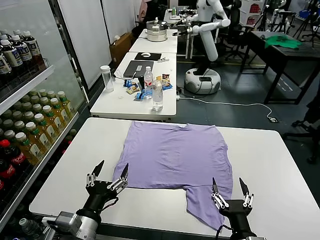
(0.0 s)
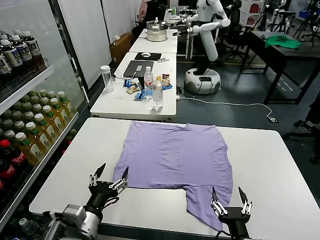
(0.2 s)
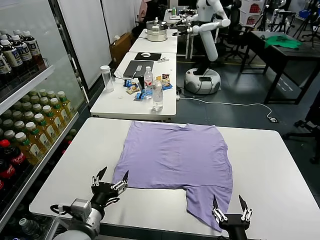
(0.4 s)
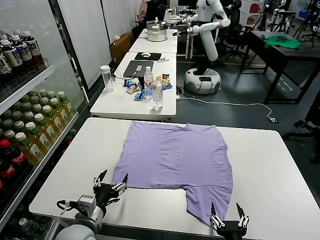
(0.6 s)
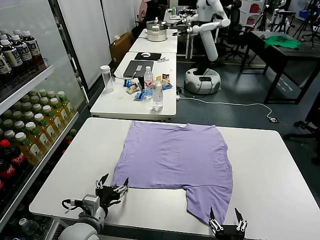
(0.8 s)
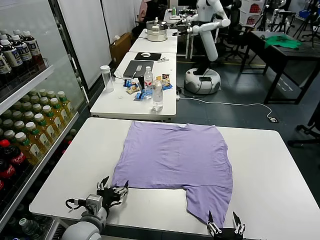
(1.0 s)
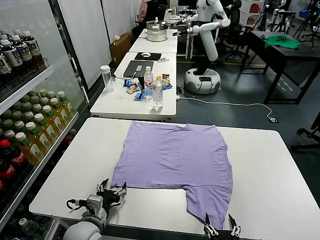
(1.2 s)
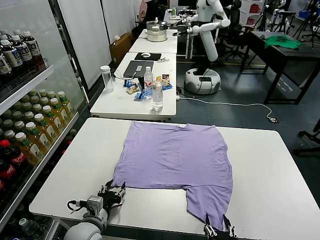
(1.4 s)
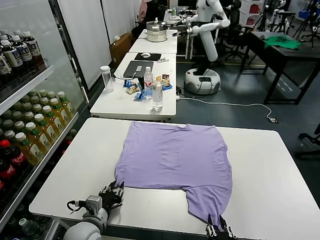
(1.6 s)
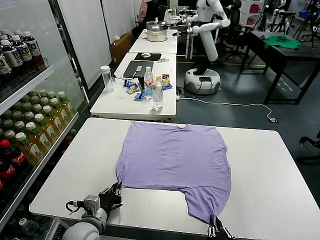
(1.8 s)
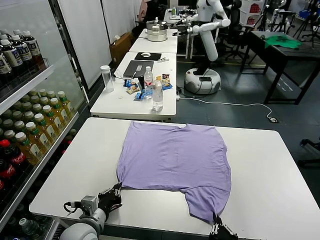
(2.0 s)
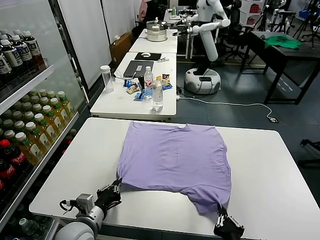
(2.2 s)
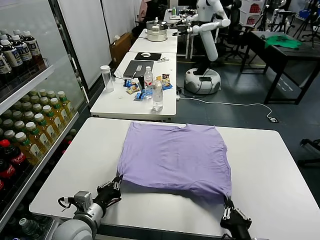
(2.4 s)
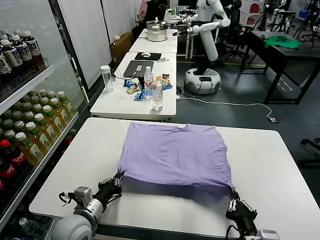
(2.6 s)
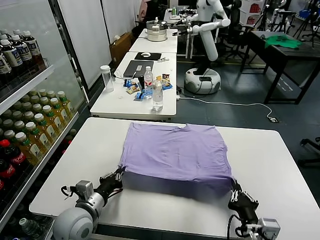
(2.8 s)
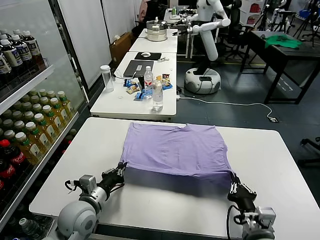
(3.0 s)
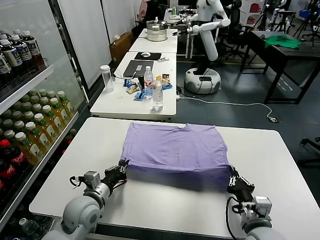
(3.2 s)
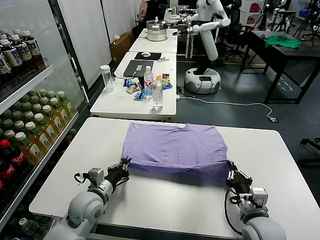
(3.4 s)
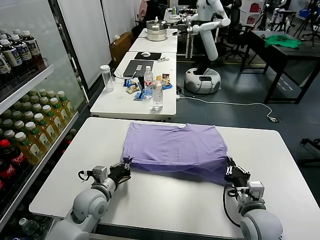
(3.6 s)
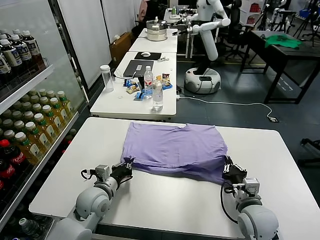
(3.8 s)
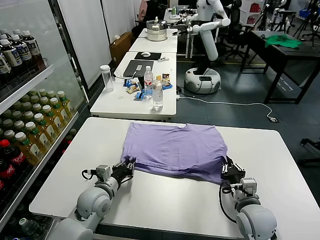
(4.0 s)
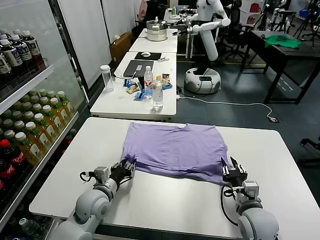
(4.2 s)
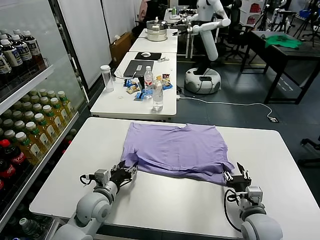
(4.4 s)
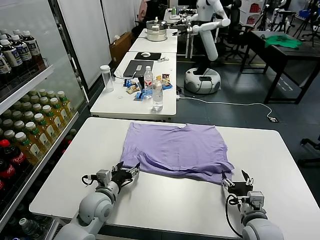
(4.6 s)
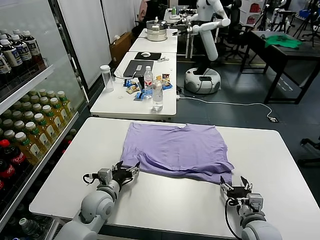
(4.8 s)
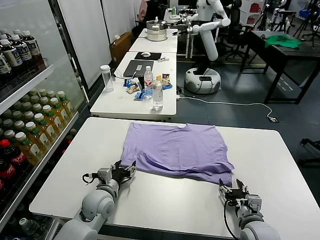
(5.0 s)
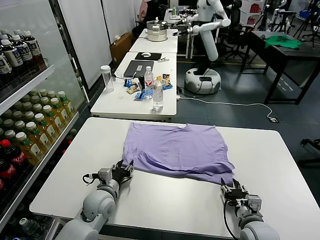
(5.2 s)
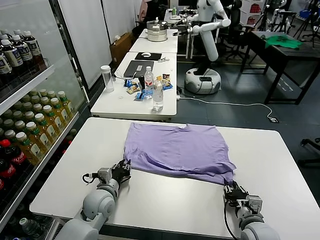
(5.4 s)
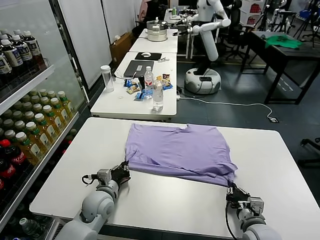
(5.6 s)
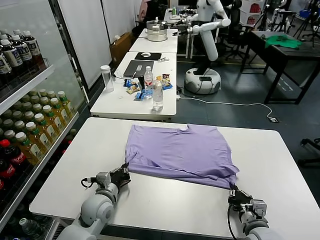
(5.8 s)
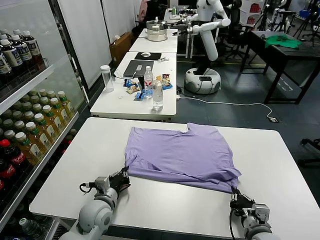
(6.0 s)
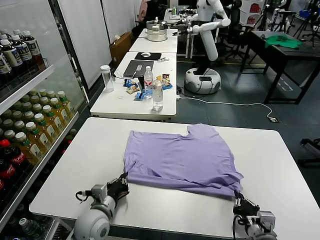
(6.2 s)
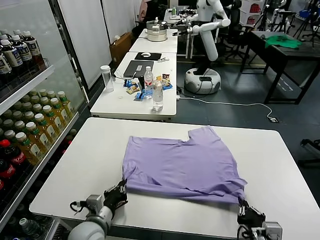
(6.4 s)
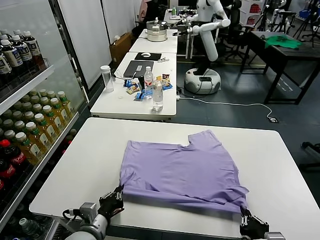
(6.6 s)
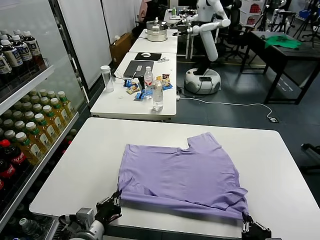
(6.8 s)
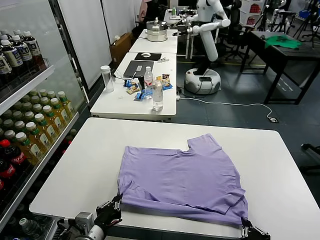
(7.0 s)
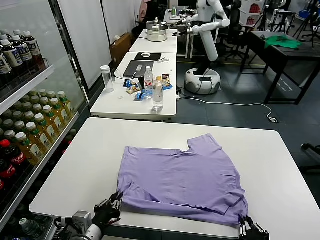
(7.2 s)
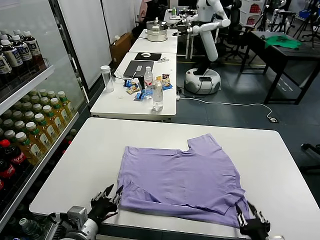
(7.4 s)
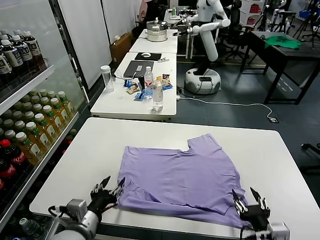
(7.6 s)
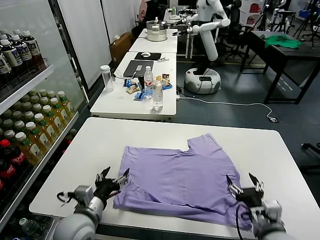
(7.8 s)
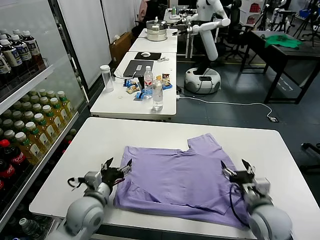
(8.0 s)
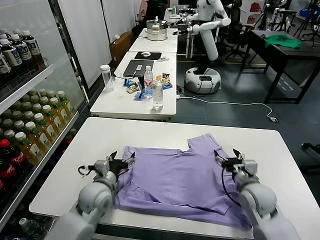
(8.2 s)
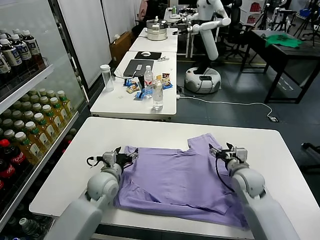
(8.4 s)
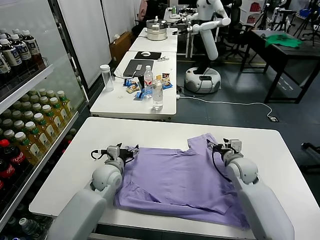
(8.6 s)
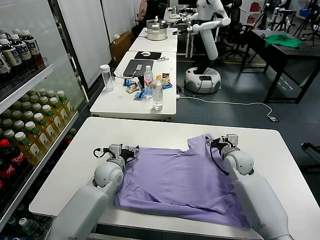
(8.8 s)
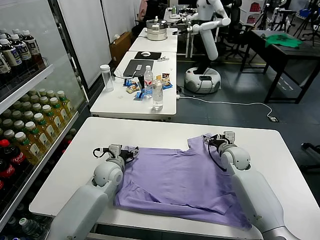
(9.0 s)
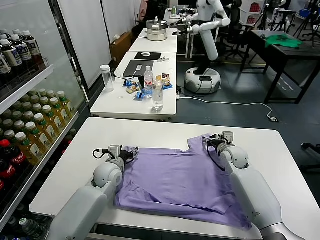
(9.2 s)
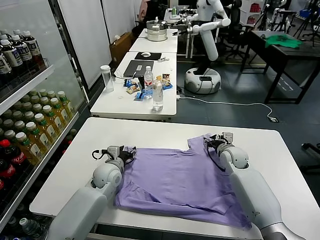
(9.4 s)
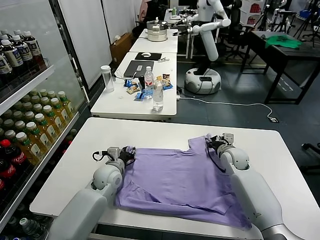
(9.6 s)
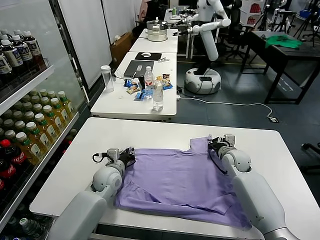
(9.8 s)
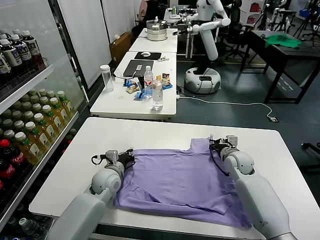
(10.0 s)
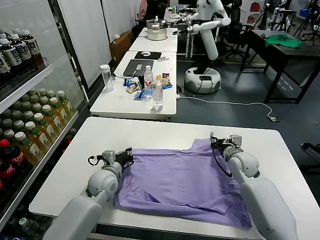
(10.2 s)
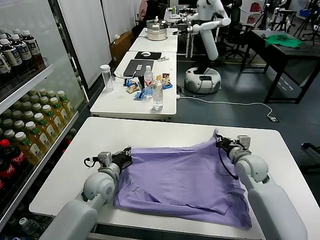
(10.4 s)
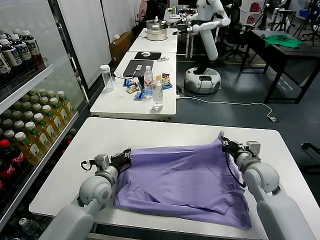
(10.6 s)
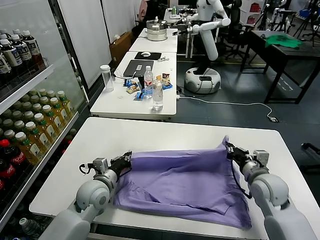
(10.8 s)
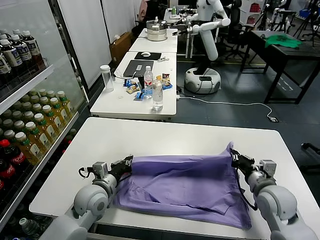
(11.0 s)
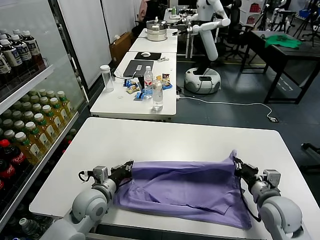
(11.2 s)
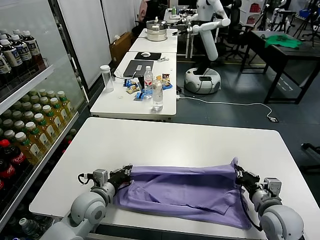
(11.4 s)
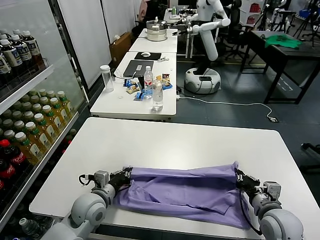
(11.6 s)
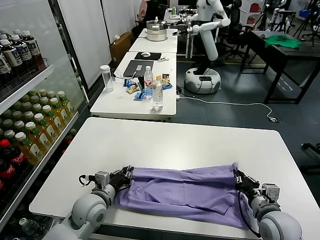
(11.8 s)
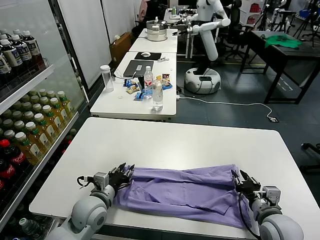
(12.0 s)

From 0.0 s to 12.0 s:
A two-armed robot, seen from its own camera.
Task of the whole recording: fold and organize the clothes.
Step, from 0.0 s to 1.8 s: use both grippers simultaneously to clamp the lower edge of the clothing fabric.
Step, from 2.0 s to 4.4 s: use both grippers to drag the lower edge of the fabric forward and fold it over the upper edge.
Step, from 4.6 s to 7.6 s: Drag the clothes downward with both gripper.
Step, from 7.8 s to 9.8 s: use both grippers simultaneously to clamp the upper edge of the clothing fabric.
From 1.6 s to 3.0 s: The right gripper travels forward and to the right by approximately 15 cm. Meanwhile the left gripper ends up some 5 cm from where it was, and closes.
From 3.0 s to 4.4 s: The right gripper ends up roughly 5 cm from where it was, and opens. The left gripper shifts by approximately 5 cm, and opens.
From 4.4 s to 6.0 s: The left gripper closes its fingers, while the right gripper heads backward, covering approximately 5 cm, and closes up.
From 6.0 s to 7.6 s: The left gripper goes approximately 15 cm backward and upward, and opens. The right gripper travels upward by about 5 cm, moves about 10 cm backward and comes back, and opens its fingers.
From 7.6 s to 9.0 s: Both grippers move forward, about 30 cm.
From 9.0 s to 10.4 s: The right gripper heads backward, covering about 10 cm, and closes. The left gripper travels backward by some 5 cm, and closes up.
From 10.4 s to 12.0 s: The left gripper goes some 10 cm backward, and opens its fingers, while the right gripper moves backward, approximately 20 cm, and opens.

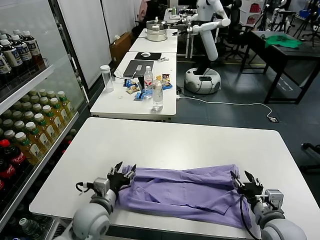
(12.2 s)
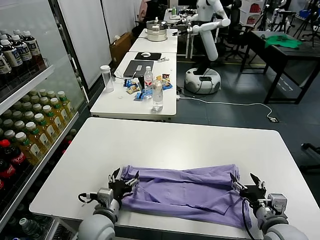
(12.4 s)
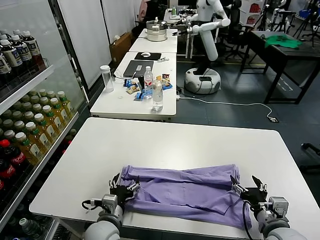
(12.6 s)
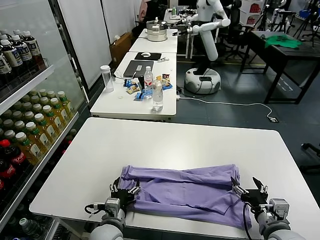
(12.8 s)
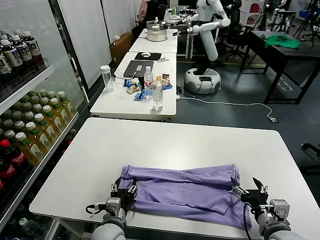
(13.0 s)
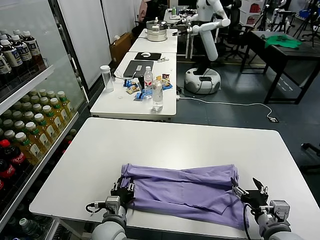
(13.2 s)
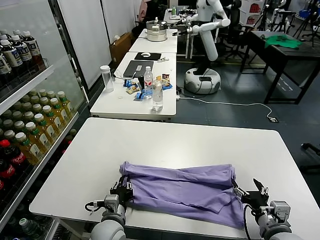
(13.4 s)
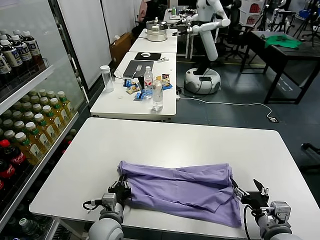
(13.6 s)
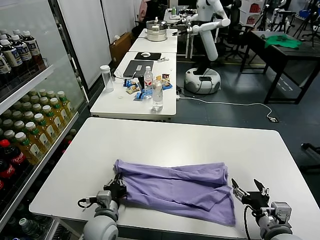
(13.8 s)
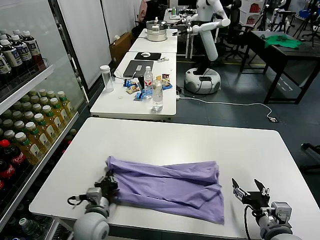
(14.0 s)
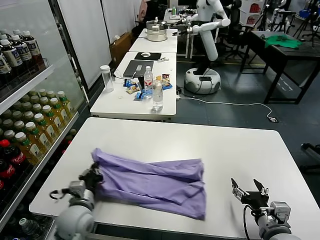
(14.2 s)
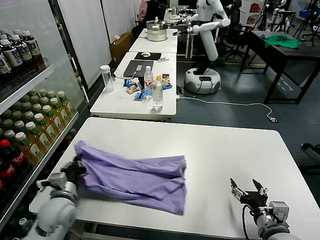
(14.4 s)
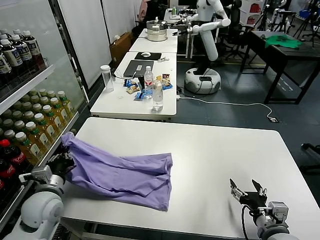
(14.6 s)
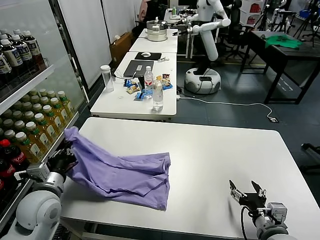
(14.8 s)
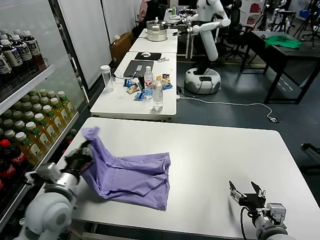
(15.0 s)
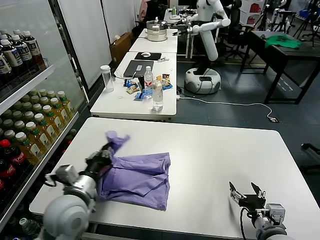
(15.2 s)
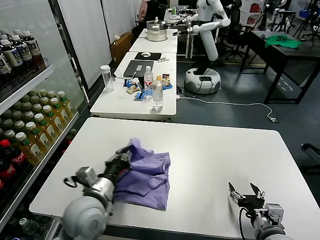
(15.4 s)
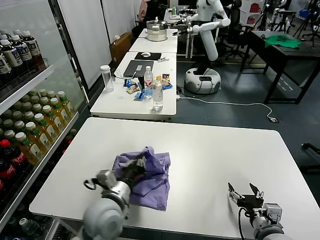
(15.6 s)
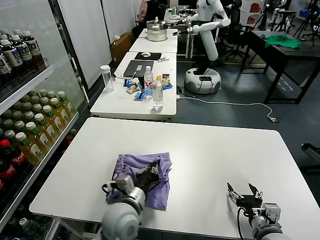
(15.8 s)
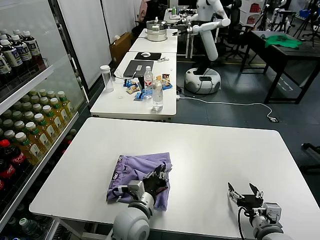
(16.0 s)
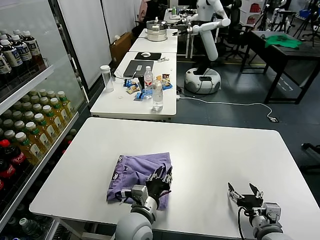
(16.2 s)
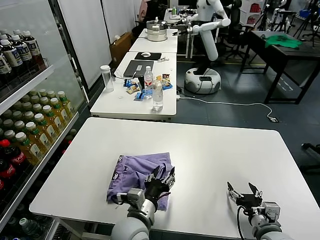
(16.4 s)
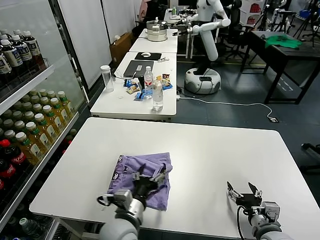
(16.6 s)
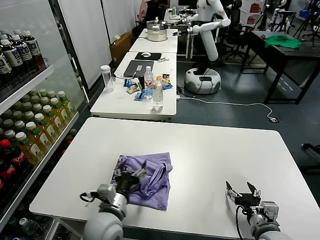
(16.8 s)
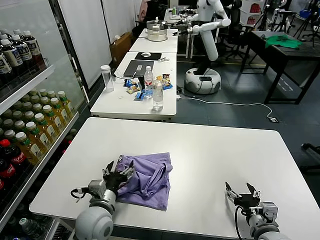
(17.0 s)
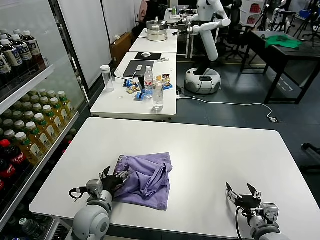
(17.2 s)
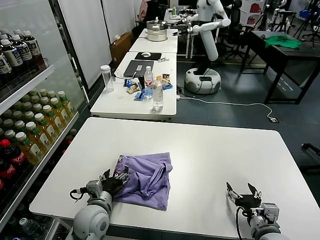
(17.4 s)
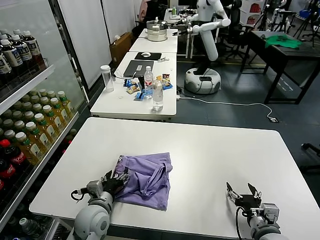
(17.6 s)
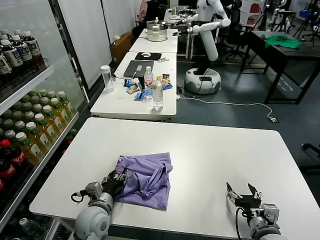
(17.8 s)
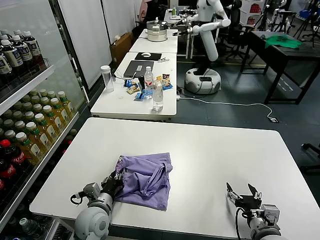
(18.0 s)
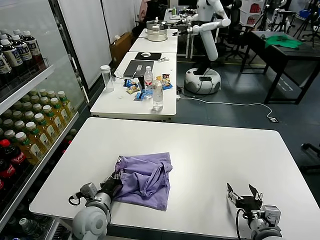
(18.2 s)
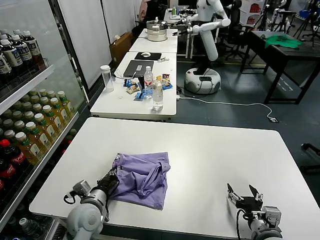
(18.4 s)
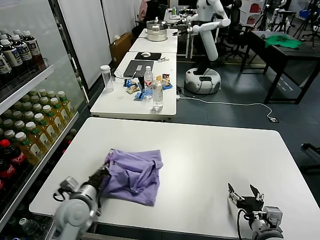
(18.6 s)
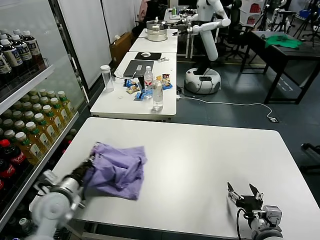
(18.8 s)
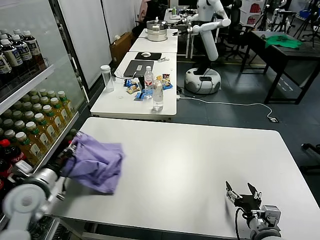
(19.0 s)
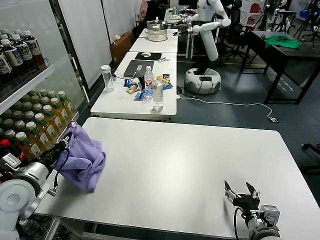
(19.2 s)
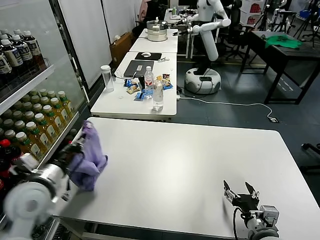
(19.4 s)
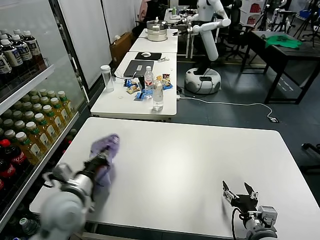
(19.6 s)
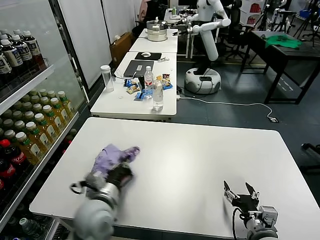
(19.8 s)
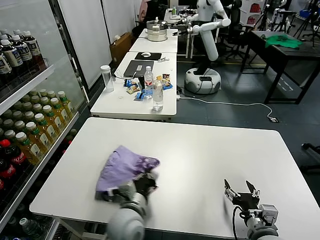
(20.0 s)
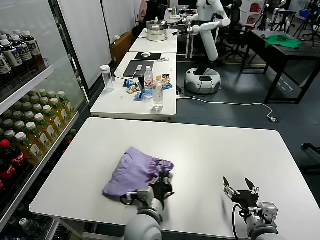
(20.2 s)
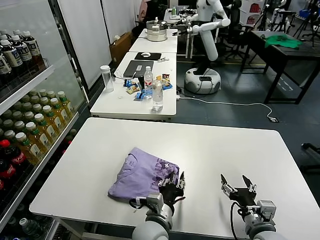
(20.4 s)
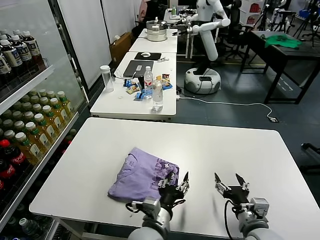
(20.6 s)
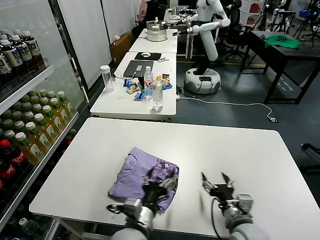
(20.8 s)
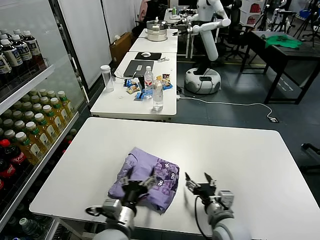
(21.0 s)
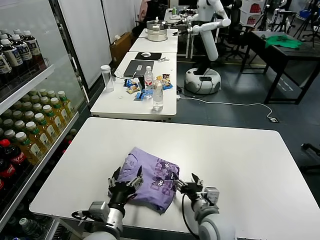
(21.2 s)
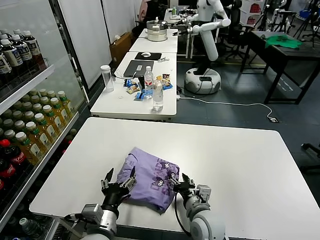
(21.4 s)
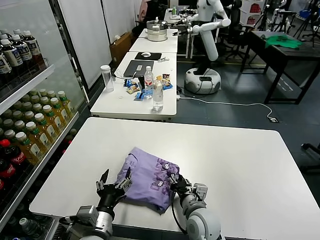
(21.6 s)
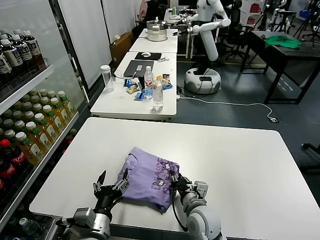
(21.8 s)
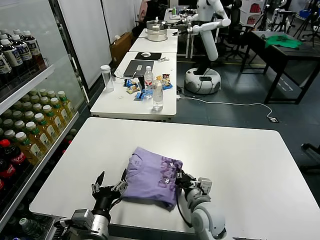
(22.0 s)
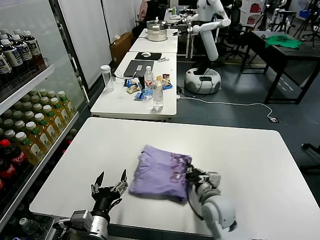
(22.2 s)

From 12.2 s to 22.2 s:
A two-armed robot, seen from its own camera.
Task of the whole recording: fold and organize the clothes.
Step, from 12.6 s to 13.6 s: use the left gripper to clamp the left edge of the fabric.
Step, from 13.8 s to 16.4 s: use the left gripper to drag the left edge of the fabric to the left and folds it over the right edge.
Step, from 16.6 s to 20.2 s: Flip the folded clothes over with left gripper.
From 12.2 s to 13.6 s: The left gripper goes some 5 cm downward, and closes.
From 13.6 s to 15.0 s: The left gripper heads upward and to the left, covering about 20 cm.
From 15.0 s to 16.4 s: The left gripper shifts approximately 20 cm to the right, and opens.
From 16.4 s to 18.0 s: The left gripper shifts about 15 cm to the left and downward.
From 18.0 s to 19.4 s: The left gripper heads upward and to the left, covering approximately 20 cm, and closes.
From 19.4 s to 20.8 s: The left gripper moves to the right, about 25 cm, and opens up, while the right gripper ends up some 5 cm from where it was.
From 20.8 s to 22.2 s: The right gripper travels forward and to the left by about 10 cm, and closes its fingers; the left gripper heads to the left, covering approximately 10 cm.
